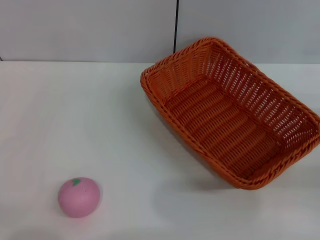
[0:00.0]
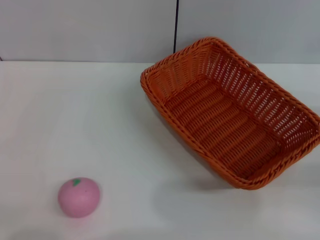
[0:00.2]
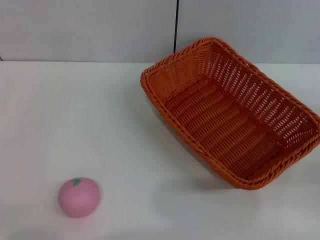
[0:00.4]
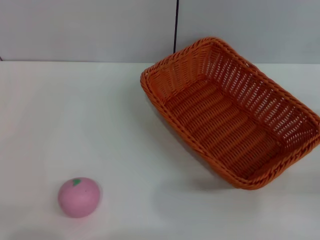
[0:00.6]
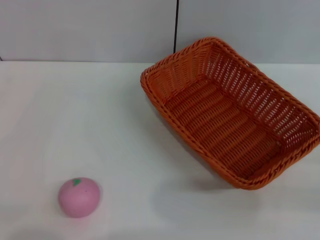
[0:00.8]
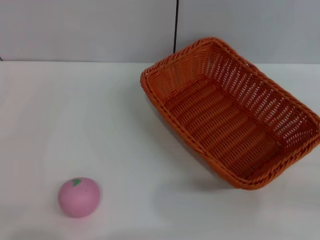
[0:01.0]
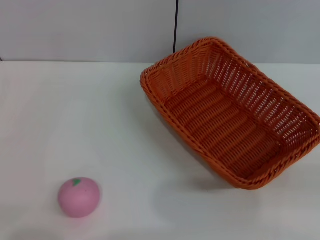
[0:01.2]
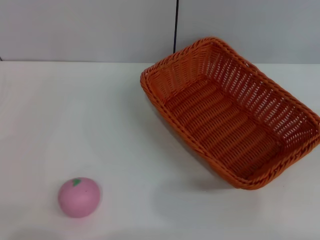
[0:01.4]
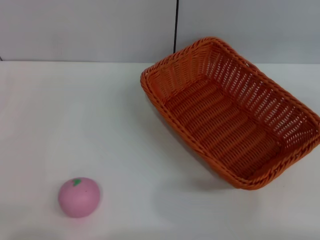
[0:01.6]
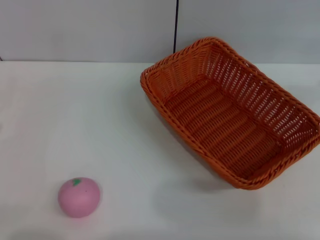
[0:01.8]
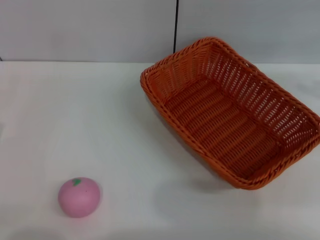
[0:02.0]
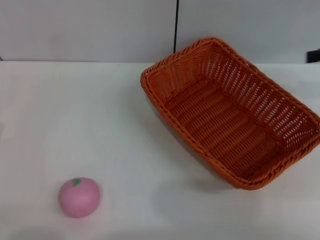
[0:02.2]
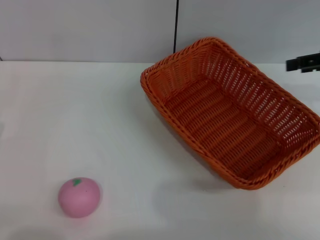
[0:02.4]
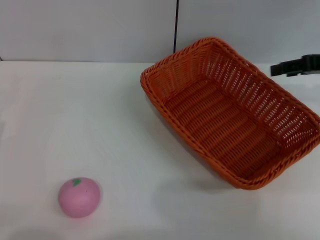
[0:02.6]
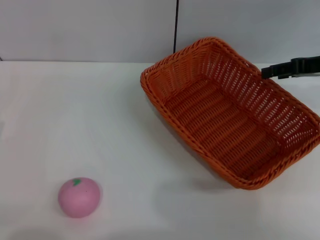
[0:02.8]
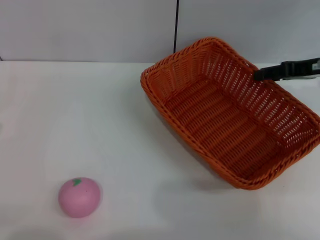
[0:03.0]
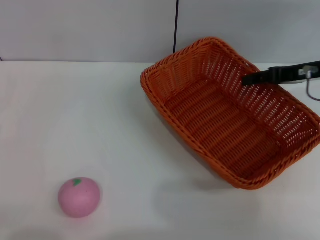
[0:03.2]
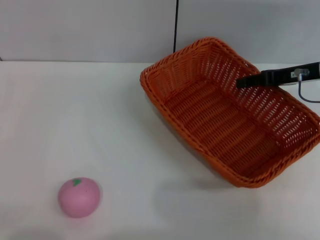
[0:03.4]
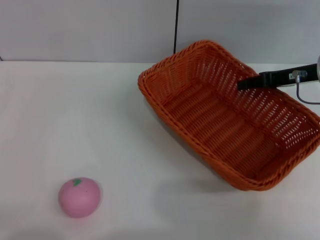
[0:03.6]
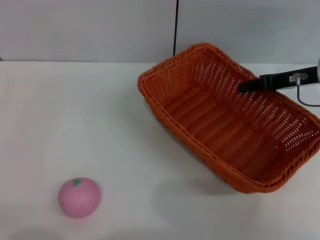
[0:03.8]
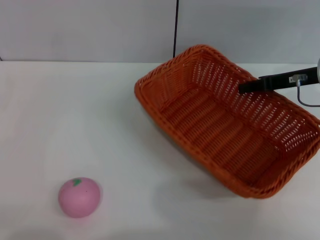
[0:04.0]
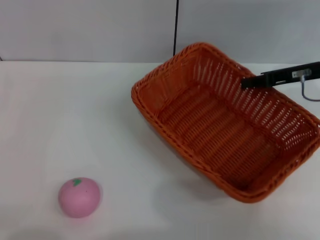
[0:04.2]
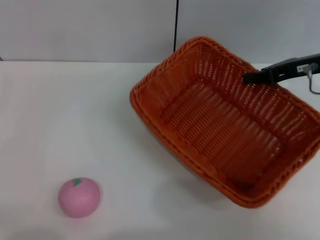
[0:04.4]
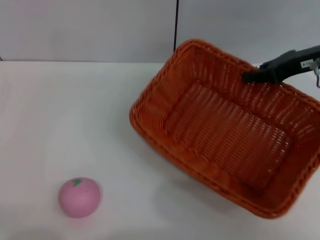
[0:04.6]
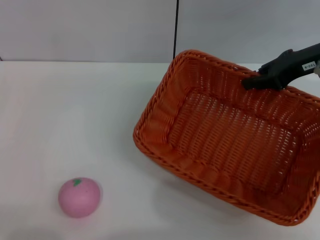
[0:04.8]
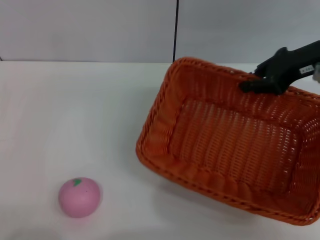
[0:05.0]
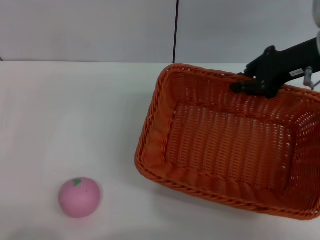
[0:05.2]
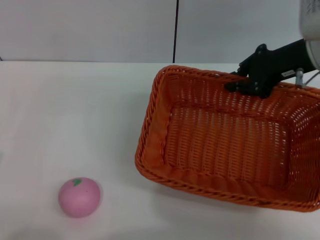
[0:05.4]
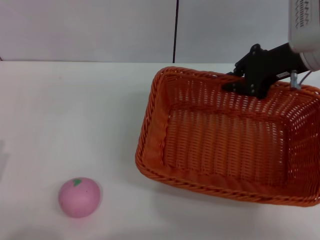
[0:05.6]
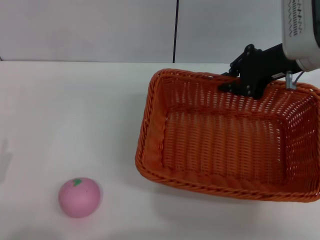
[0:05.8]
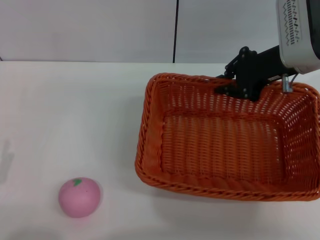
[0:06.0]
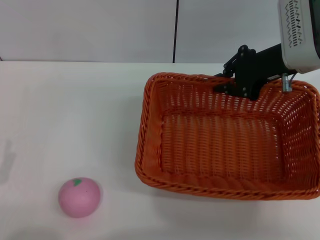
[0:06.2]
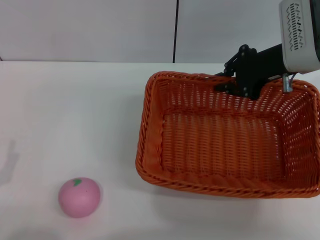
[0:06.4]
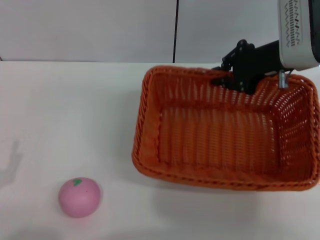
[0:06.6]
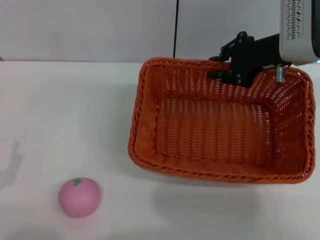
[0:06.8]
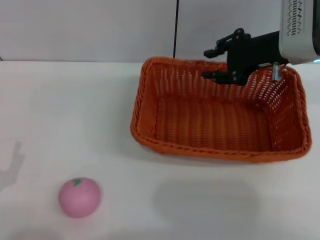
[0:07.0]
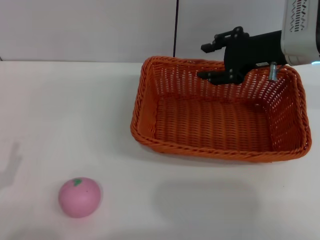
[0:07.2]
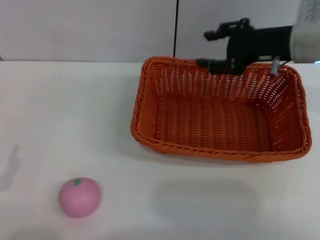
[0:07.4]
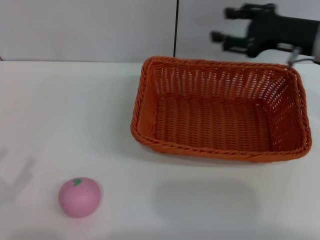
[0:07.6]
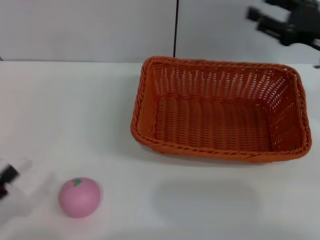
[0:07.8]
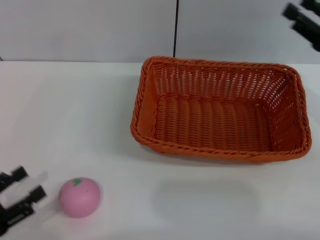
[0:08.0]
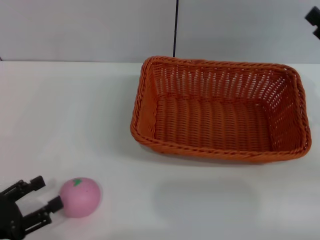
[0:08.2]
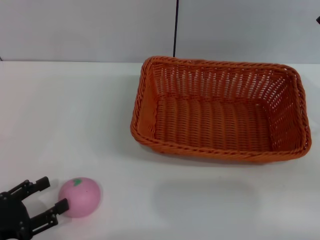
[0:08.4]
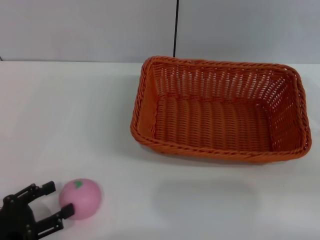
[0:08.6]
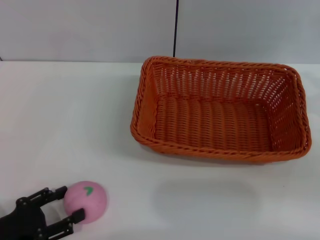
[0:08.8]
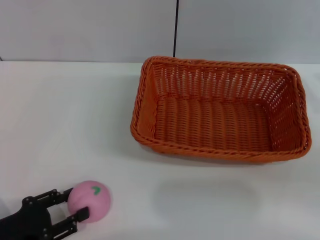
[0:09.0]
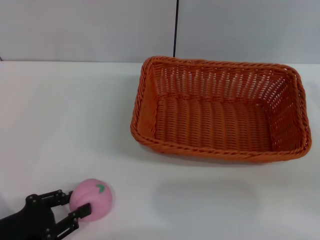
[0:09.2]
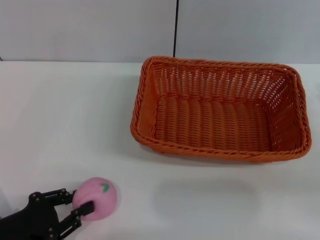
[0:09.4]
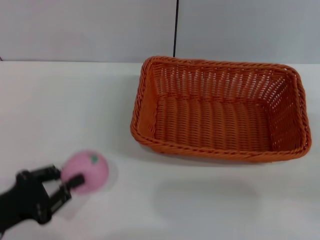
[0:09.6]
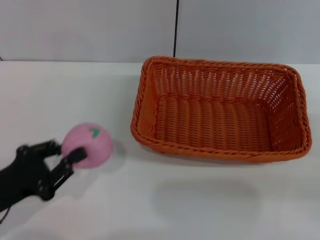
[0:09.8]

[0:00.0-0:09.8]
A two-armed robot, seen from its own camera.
Step, 0:00.0 to 0:04.2: Pick up the light basket with the right gripper.
Step, 0:04.6 to 0:07.4: Place the light basket in the center of view with the right gripper.
Step, 0:07.6 to 0:09.8: Pick up the peach with the left gripper.
0:01.4 to 0:02.8: The right gripper goes about 20 cm forward and to the left.
0:02.8 to 0:04.2: The right gripper closes up.
0:04.2 to 0:05.6: The left gripper goes approximately 5 cm backward; the right gripper heads to the left, covering about 5 cm.
0:05.6 to 0:07.0: The right gripper opens.
0:07.0 to 0:08.4: The right gripper moves backward, to the right and downward, some 20 cm, and opens.
0:08.4 to 0:09.8: The left gripper moves forward, some 5 cm, and closes its fingers.

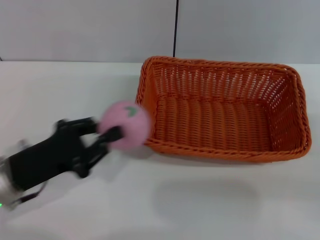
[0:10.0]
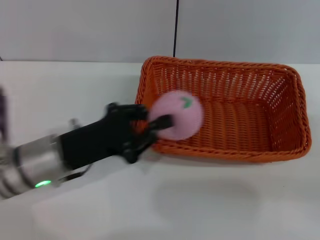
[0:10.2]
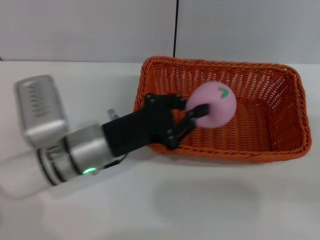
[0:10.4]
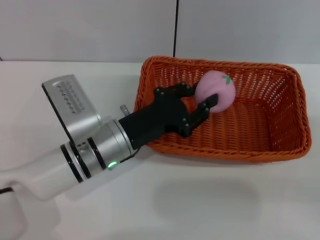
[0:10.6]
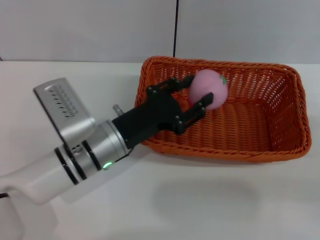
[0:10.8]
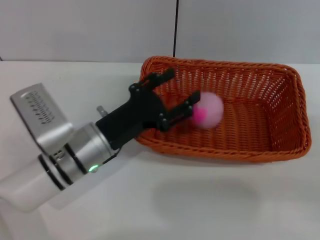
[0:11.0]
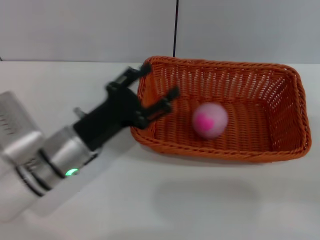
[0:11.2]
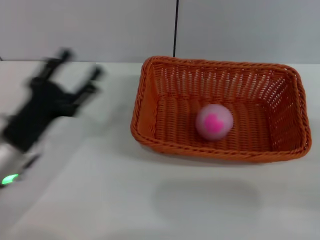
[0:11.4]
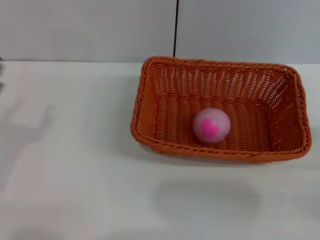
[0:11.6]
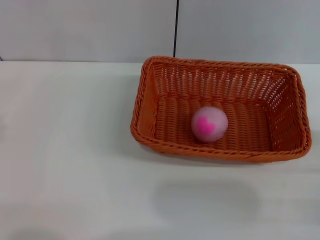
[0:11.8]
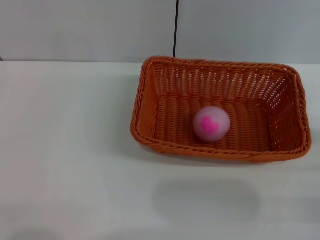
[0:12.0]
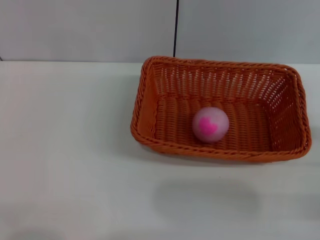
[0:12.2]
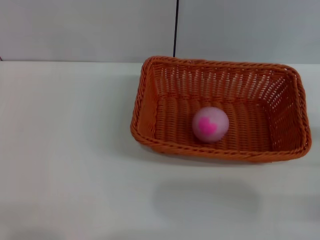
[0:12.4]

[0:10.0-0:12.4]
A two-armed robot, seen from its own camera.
Step, 0:10.0 to 0:11.0: Place the peach into the basket with the left gripper.
0:10.0 to 0:11.2: The left gripper moves to the right, roughly 10 cm, and opens up.
0:11.2 to 0:12.4: The left gripper moves to the left and backward, roughly 25 cm.

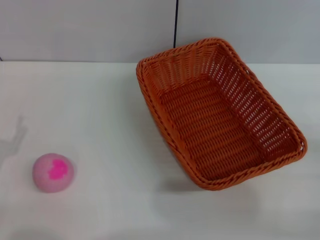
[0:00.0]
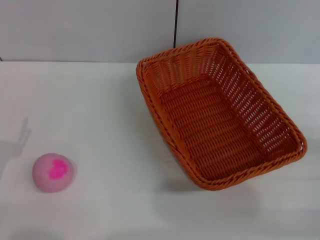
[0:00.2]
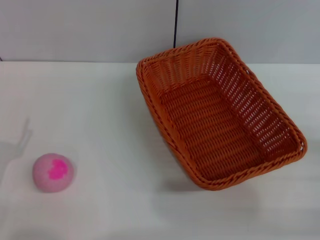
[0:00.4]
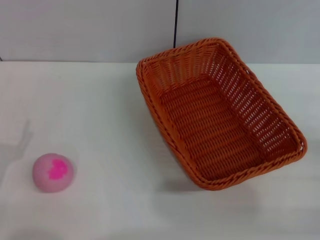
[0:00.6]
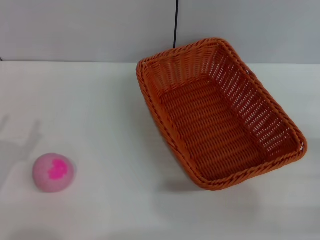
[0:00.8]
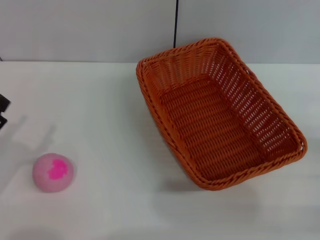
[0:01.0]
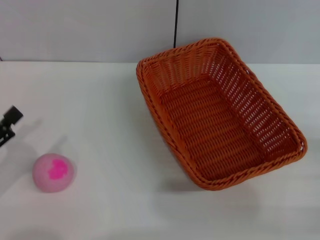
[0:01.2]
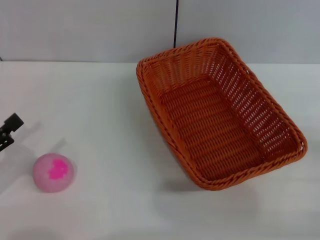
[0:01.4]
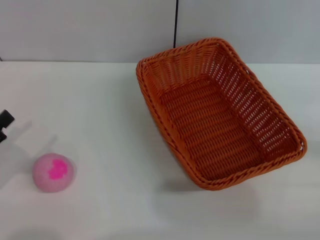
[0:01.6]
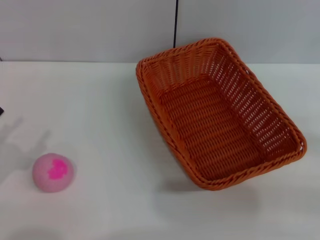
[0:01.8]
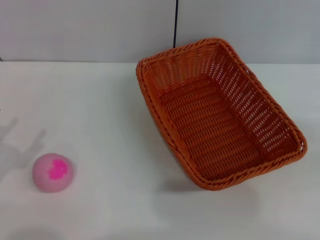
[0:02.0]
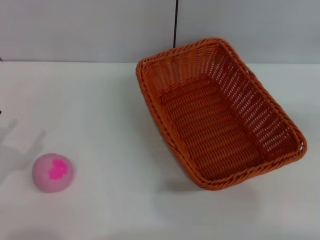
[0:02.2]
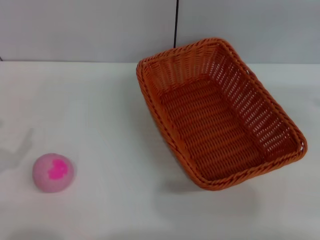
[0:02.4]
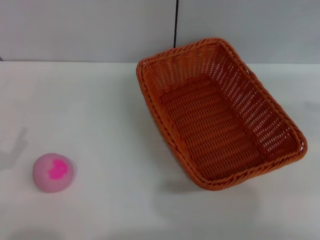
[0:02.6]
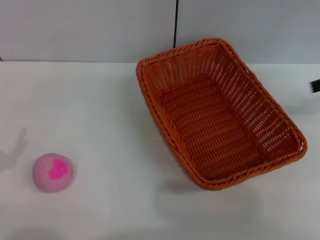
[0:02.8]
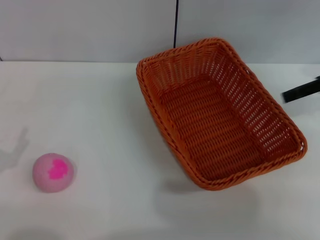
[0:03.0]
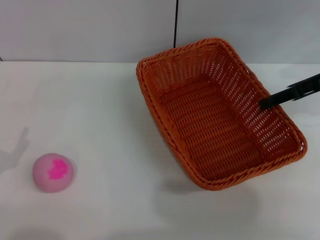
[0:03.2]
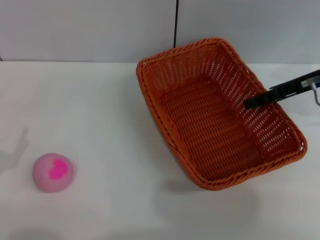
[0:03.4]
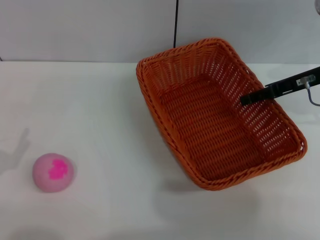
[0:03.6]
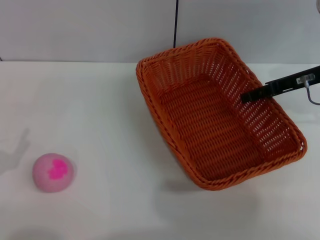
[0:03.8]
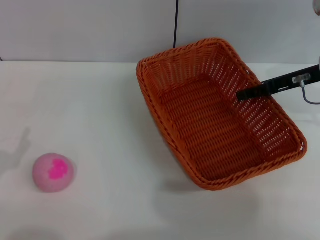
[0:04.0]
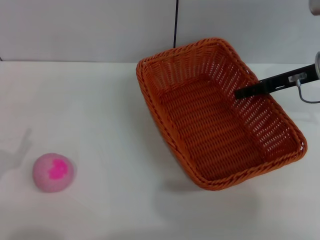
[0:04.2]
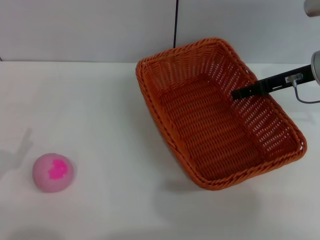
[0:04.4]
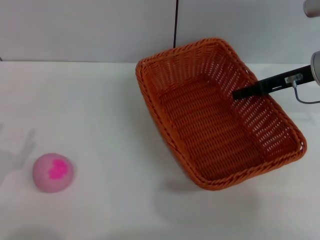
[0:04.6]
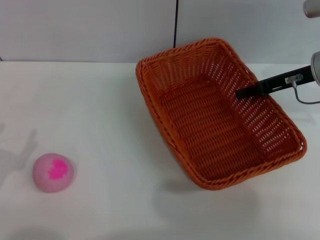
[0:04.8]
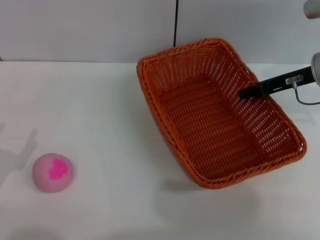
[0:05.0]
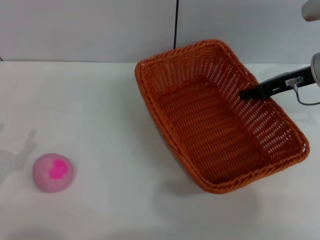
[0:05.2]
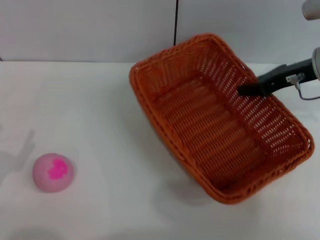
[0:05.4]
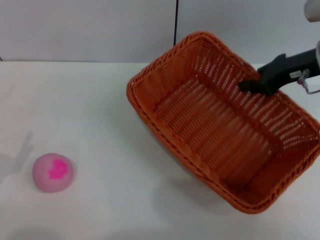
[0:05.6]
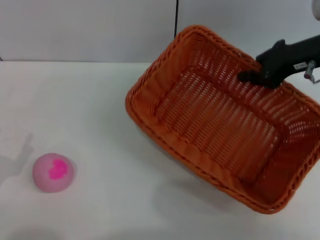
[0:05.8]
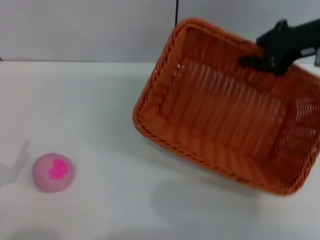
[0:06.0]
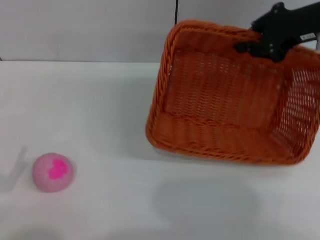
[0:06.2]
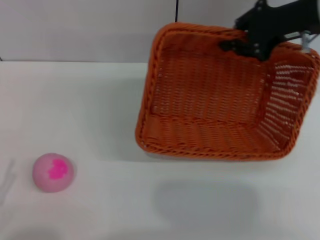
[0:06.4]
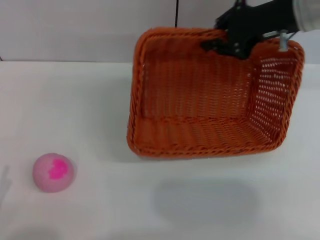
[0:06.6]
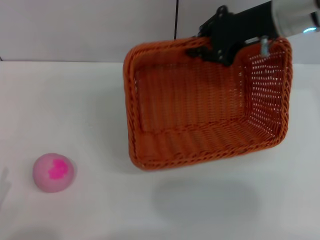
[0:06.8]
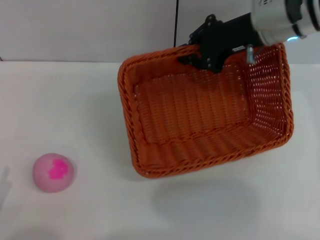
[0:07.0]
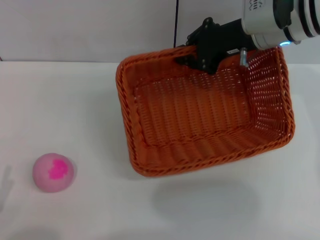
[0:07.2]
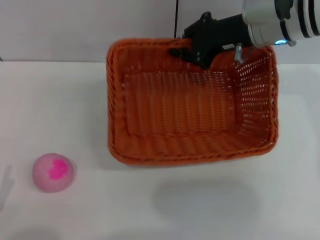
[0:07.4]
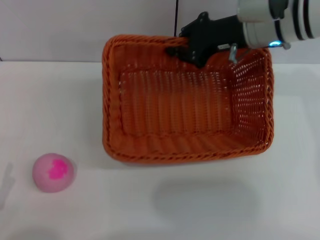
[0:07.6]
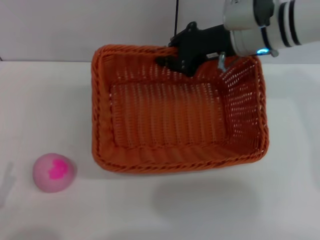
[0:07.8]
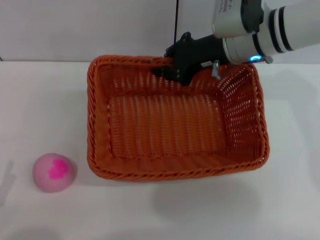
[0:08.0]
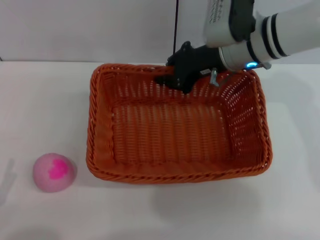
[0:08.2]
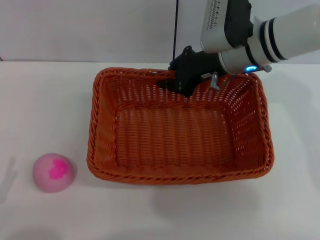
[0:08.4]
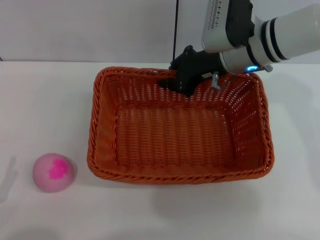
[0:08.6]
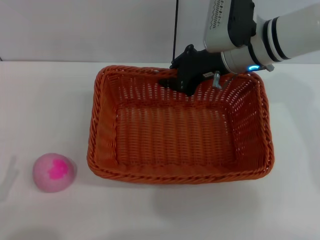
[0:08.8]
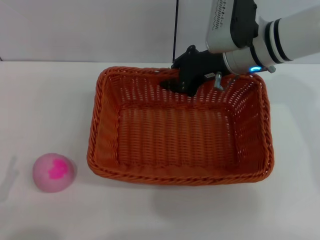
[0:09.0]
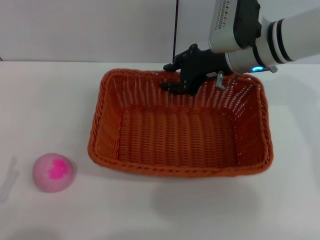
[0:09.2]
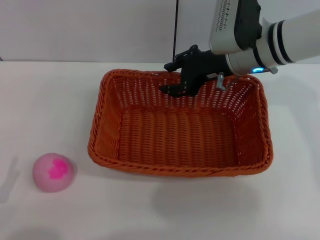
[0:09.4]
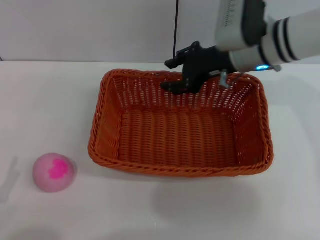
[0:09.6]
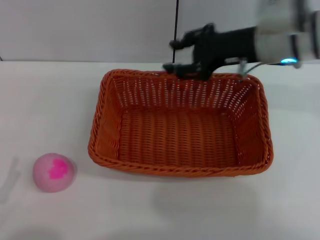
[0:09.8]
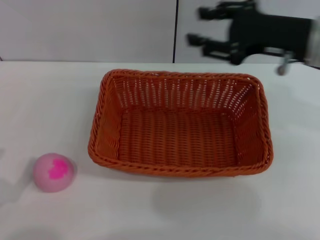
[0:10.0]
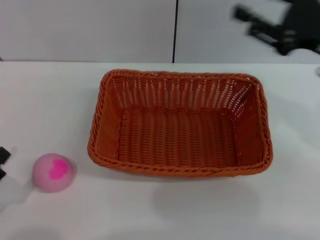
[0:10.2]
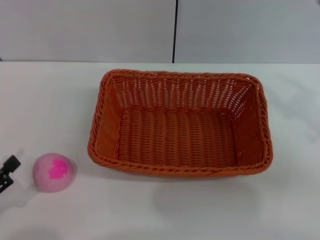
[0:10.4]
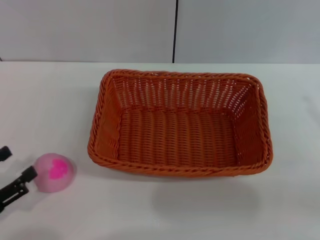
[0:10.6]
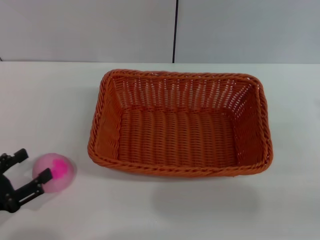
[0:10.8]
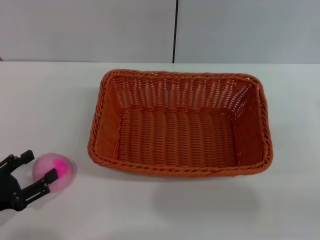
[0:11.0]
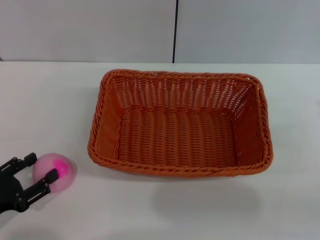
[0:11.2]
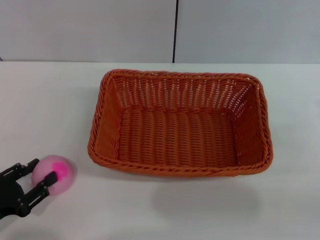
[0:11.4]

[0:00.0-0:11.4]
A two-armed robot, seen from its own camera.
Step, 0:00.0 to 0:05.8: Pick up the light basket with the right gripper.
Step, 0:06.0 to 0:10.0: Place the light basket in the center of view with the right gripper.
0:00.0 to 0:01.4: The left gripper heads upward, covering roughly 5 cm.
0:01.4 to 0:02.8: The right gripper shifts about 25 cm forward and upward.
0:02.8 to 0:04.2: The right gripper is displaced to the left and downward by some 10 cm.
0:04.2 to 0:05.6: The right gripper closes its fingers.
0:05.6 to 0:07.2: The right gripper is displaced to the left by some 10 cm, while the left gripper moves backward, some 10 cm.
0:07.2 to 0:08.6: The right gripper shifts by about 5 cm.
0:08.6 to 0:10.0: The right gripper is displaced to the right, backward and upward by about 15 cm, and opens its fingers.
0:10.0 to 0:11.4: The right gripper goes approximately 25 cm to the right, backward and downward, while the left gripper moves forward, approximately 5 cm.
